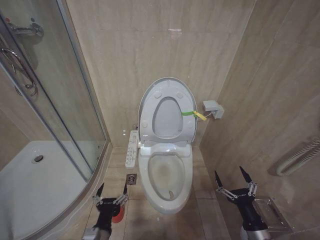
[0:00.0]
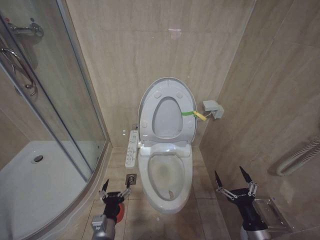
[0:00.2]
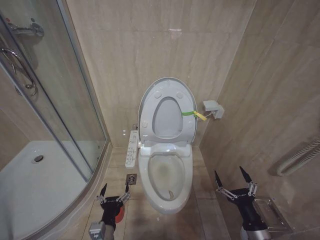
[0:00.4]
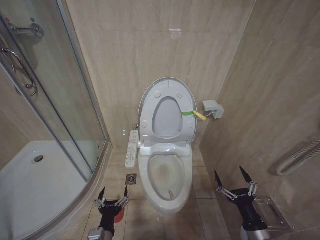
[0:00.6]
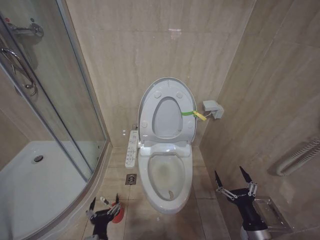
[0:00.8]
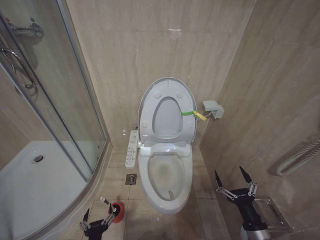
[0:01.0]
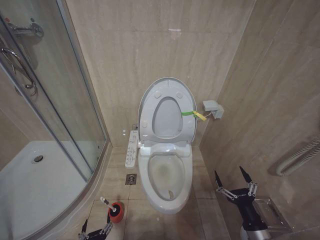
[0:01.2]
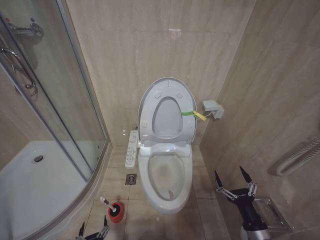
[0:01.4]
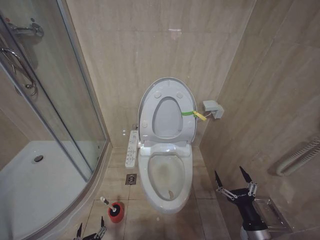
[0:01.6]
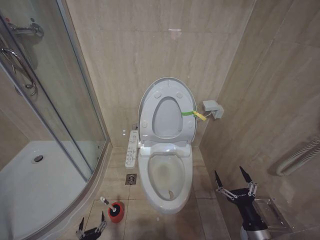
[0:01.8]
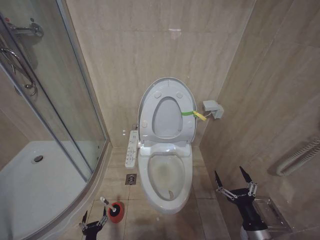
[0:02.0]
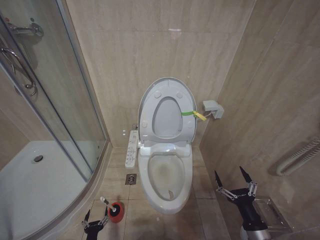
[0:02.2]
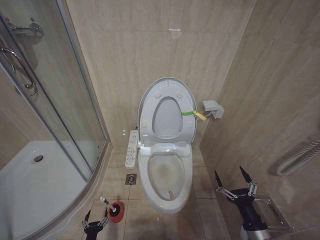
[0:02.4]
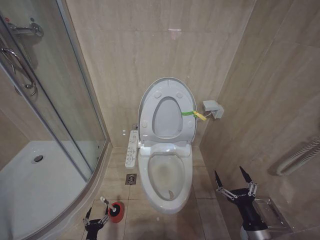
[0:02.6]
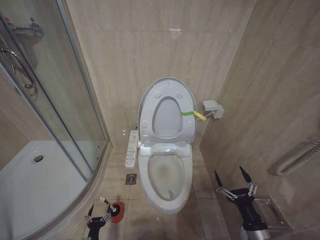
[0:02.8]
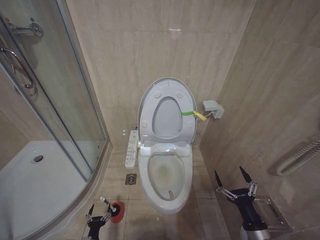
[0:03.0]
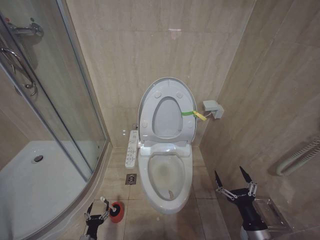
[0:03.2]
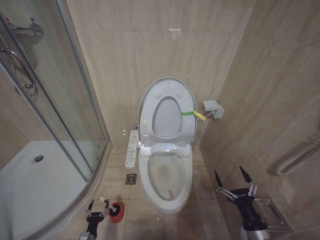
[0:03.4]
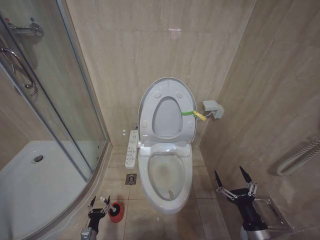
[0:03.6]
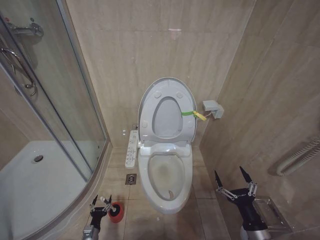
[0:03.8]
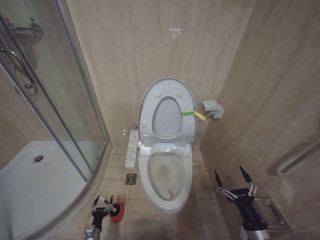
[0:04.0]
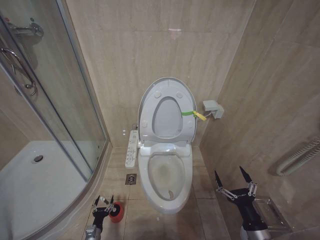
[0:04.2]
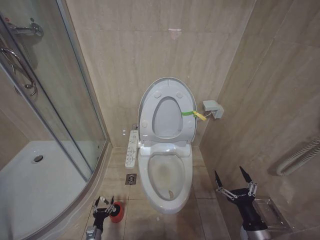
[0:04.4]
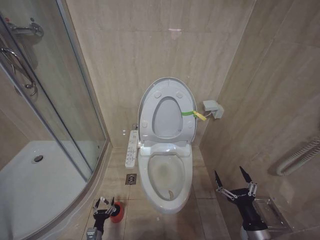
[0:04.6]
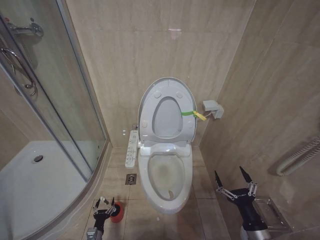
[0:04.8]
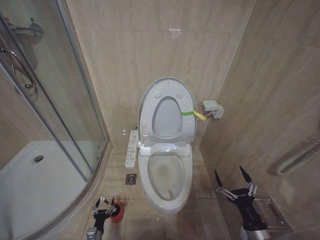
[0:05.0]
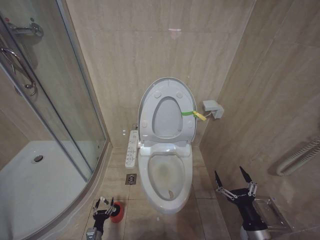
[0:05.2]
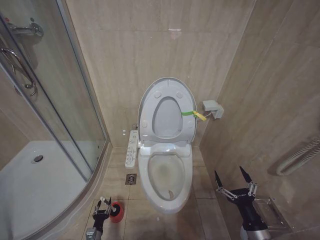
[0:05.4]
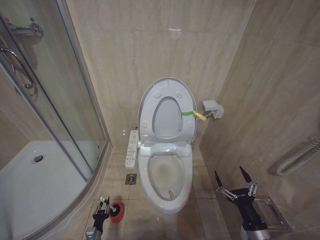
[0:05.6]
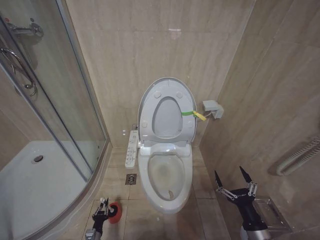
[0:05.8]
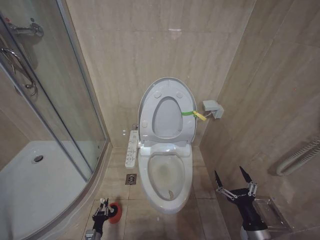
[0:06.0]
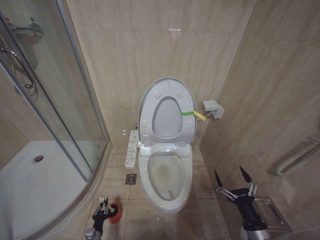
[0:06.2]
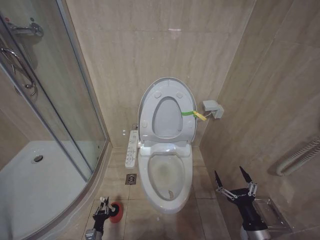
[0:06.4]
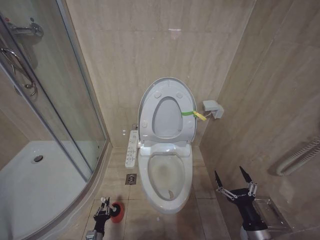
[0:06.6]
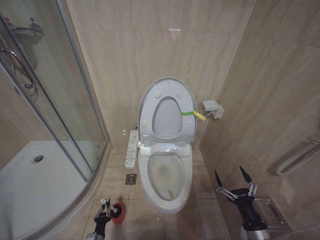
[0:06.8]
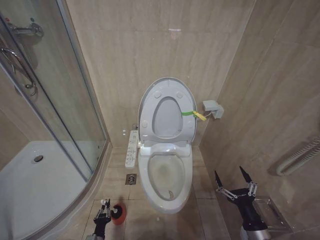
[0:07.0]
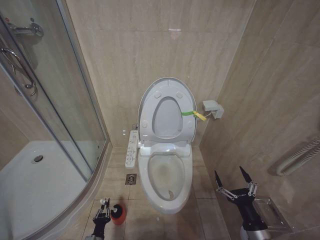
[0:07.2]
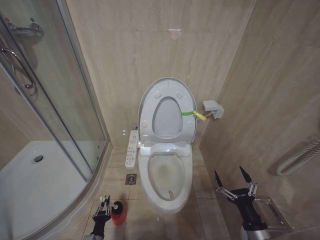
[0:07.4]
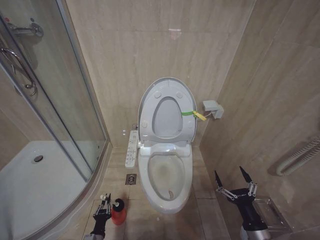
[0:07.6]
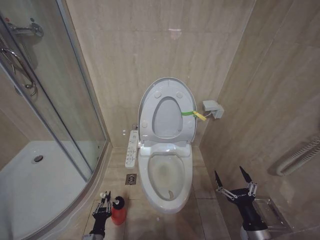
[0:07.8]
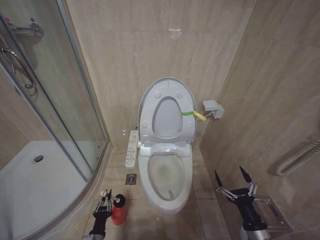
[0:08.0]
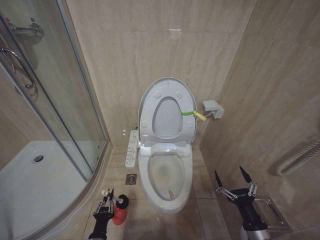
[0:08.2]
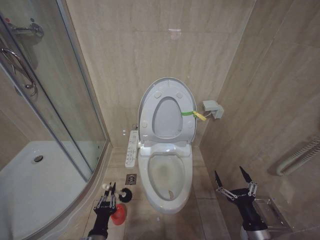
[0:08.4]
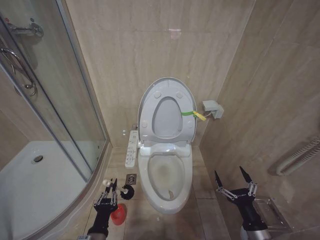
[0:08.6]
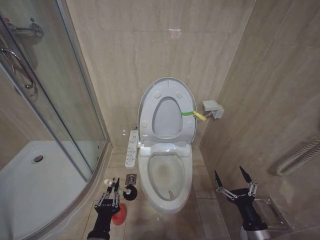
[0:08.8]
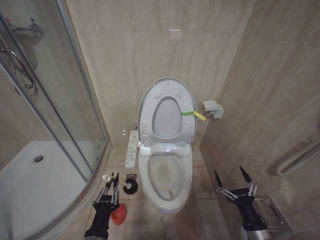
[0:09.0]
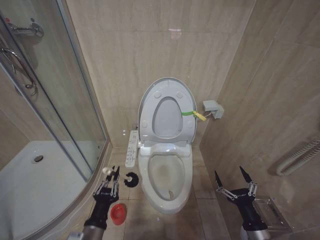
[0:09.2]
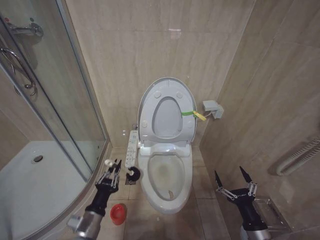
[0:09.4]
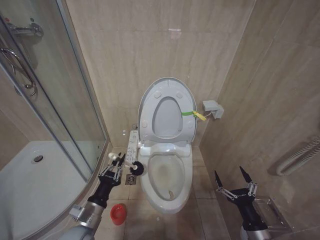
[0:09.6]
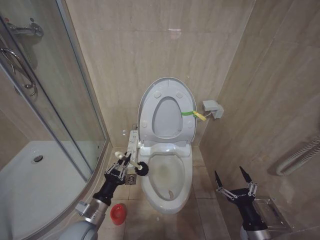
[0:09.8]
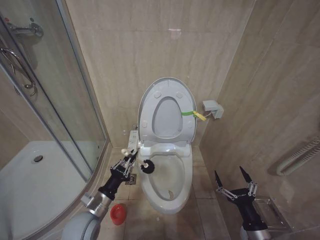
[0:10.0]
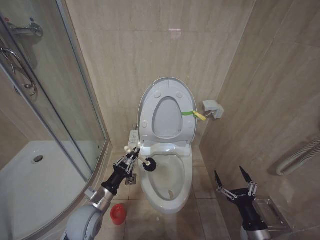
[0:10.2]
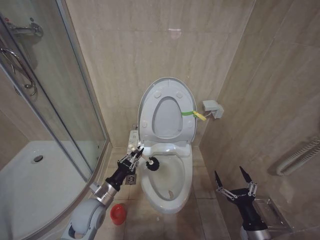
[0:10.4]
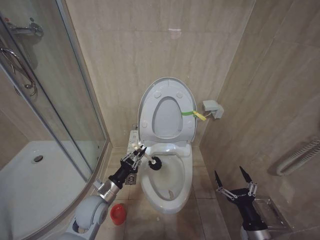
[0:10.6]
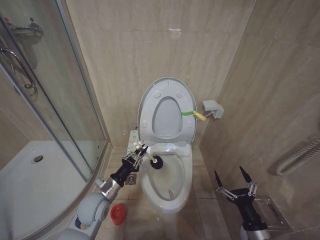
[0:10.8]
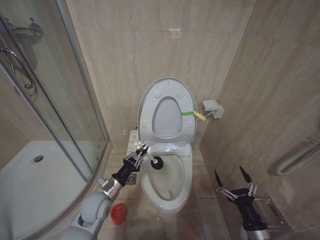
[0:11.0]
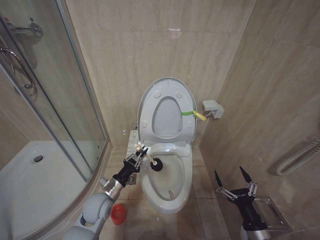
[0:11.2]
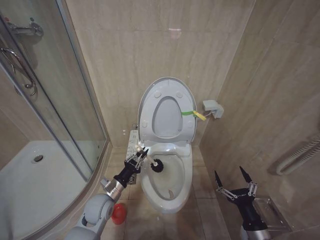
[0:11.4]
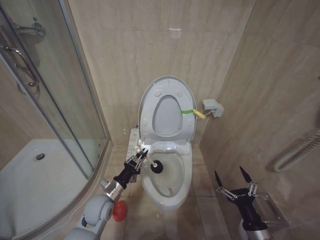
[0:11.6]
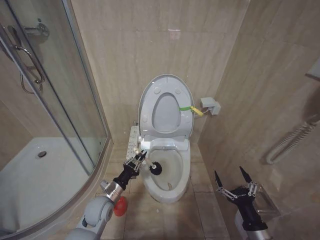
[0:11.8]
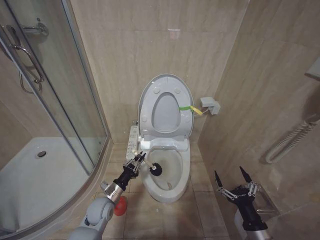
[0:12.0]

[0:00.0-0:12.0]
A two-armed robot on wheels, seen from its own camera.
Task of the whole recording: Open the toilet lid, clean the toilet bowl with a toilet brush, close the toilet lid, and flush.
0:00.0 to 0:01.6: The left gripper is displaced downward by roughly 20 cm.
0:01.6 to 0:03.0: The left gripper is displaced forward, downward and to the left by about 15 cm.
0:06.0 to 0:07.6: The left gripper moves upward, approximately 10 cm.
0:07.6 to 0:09.0: The left gripper goes some 25 cm upward.
0:09.0 to 0:10.4: The left gripper heads forward, covering approximately 15 cm.
0:10.4 to 0:12.0: The left gripper moves downward, roughly 5 cm.

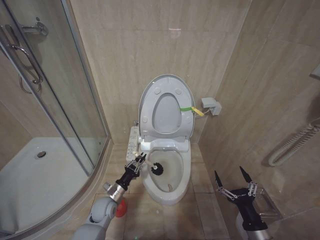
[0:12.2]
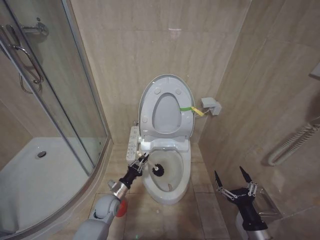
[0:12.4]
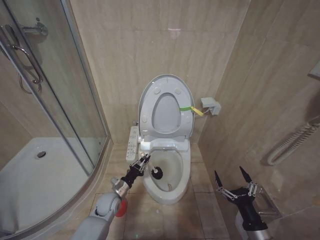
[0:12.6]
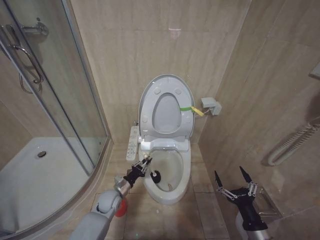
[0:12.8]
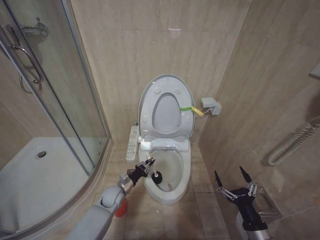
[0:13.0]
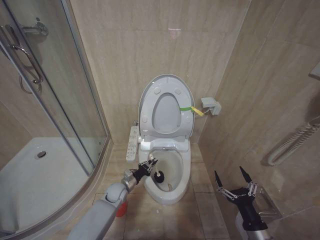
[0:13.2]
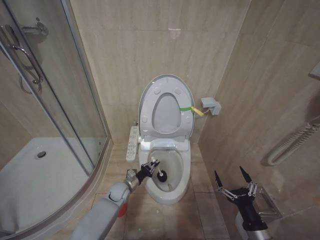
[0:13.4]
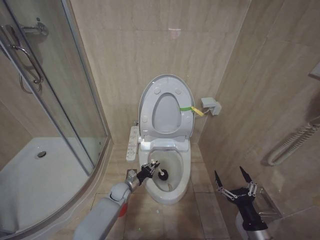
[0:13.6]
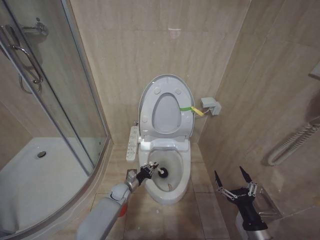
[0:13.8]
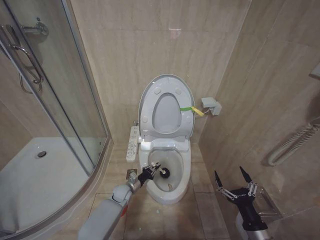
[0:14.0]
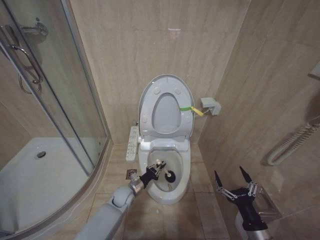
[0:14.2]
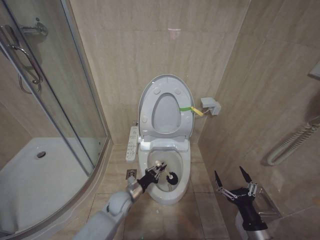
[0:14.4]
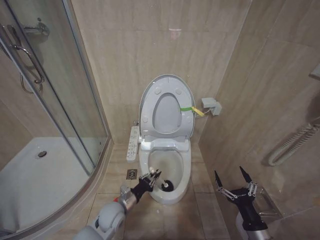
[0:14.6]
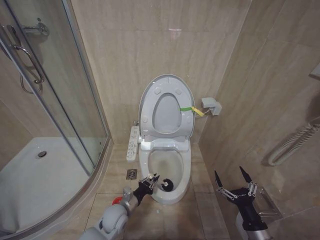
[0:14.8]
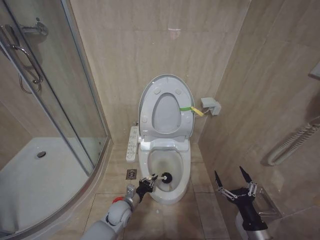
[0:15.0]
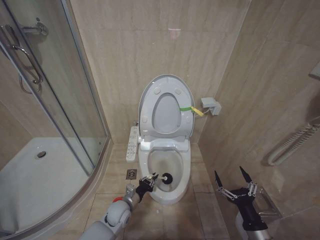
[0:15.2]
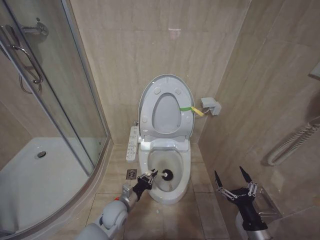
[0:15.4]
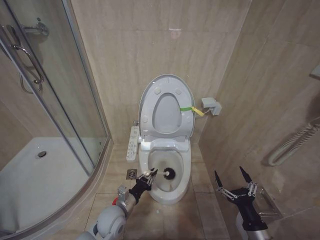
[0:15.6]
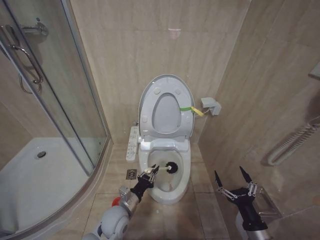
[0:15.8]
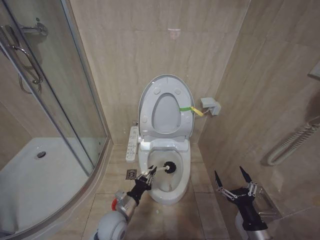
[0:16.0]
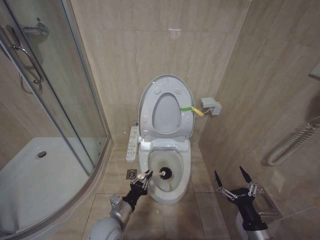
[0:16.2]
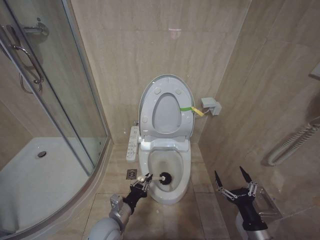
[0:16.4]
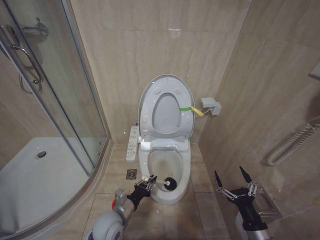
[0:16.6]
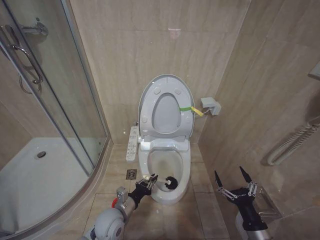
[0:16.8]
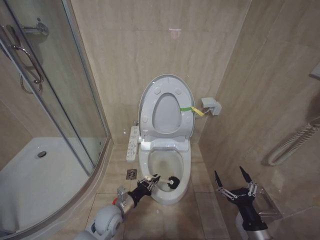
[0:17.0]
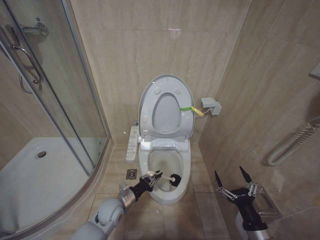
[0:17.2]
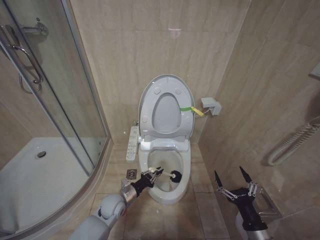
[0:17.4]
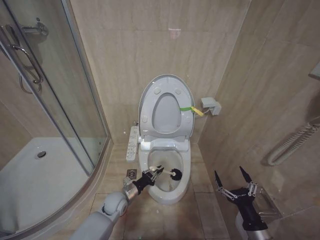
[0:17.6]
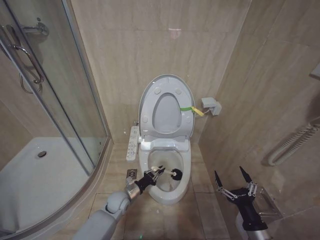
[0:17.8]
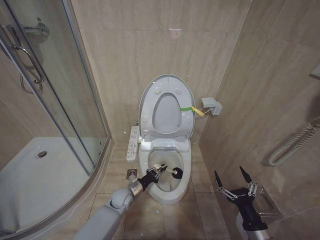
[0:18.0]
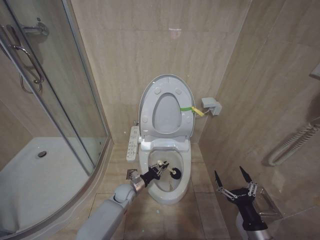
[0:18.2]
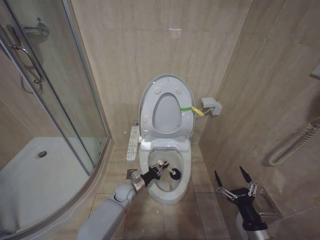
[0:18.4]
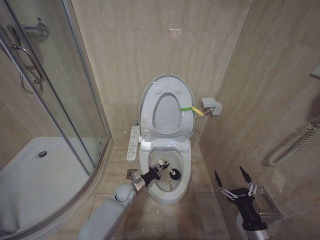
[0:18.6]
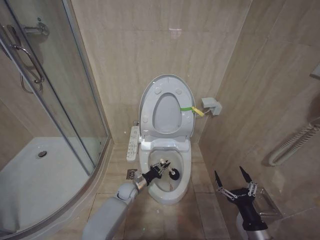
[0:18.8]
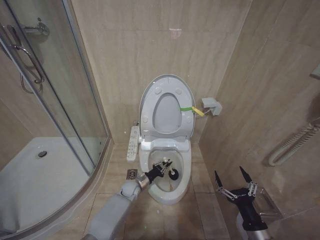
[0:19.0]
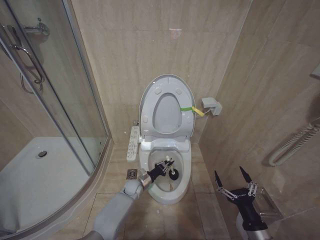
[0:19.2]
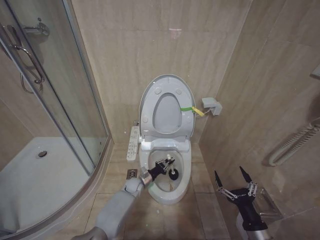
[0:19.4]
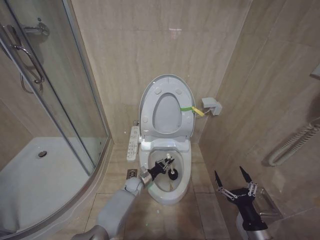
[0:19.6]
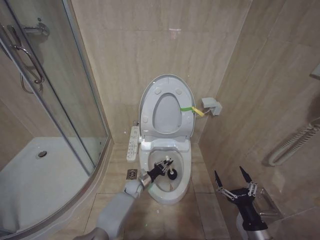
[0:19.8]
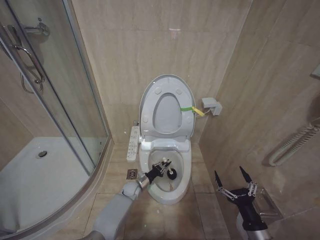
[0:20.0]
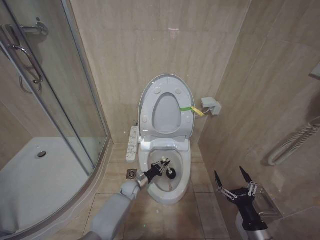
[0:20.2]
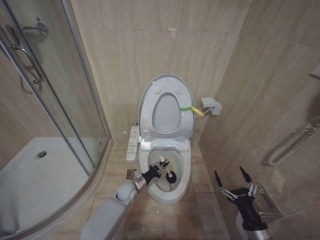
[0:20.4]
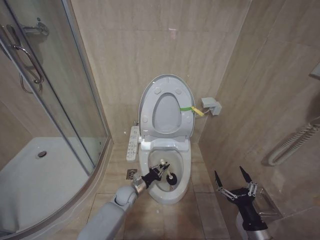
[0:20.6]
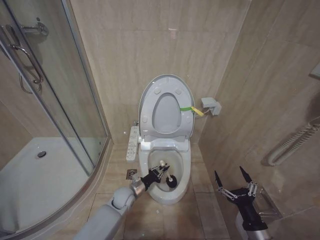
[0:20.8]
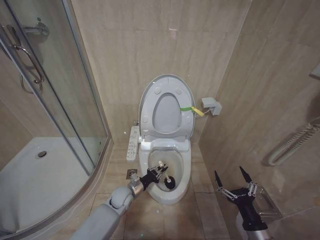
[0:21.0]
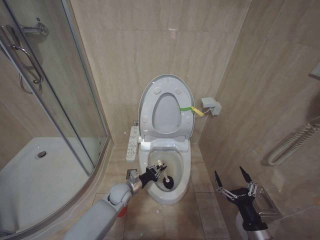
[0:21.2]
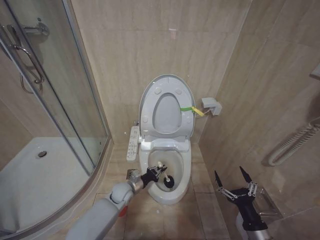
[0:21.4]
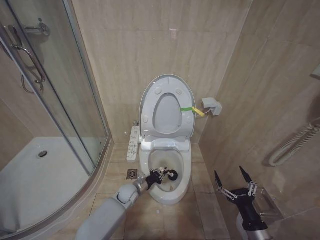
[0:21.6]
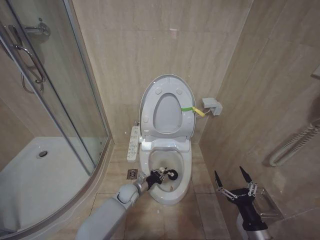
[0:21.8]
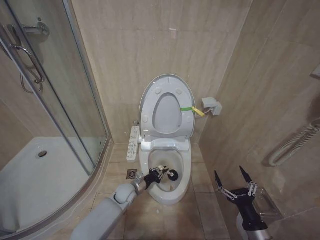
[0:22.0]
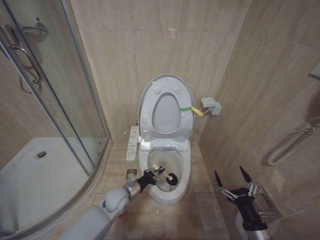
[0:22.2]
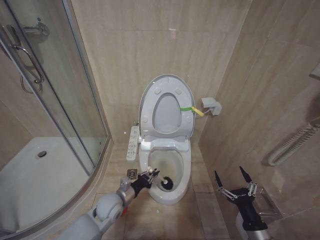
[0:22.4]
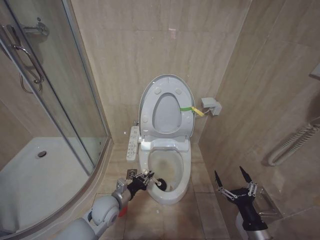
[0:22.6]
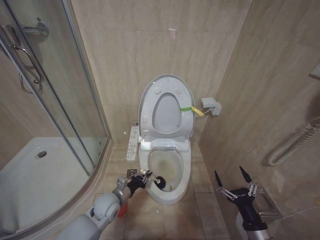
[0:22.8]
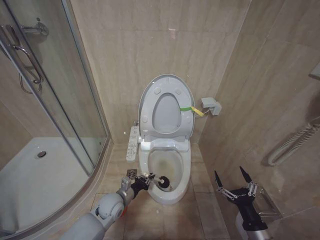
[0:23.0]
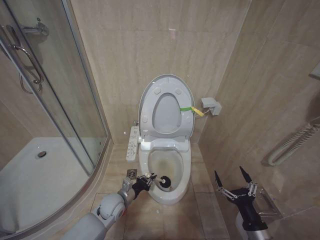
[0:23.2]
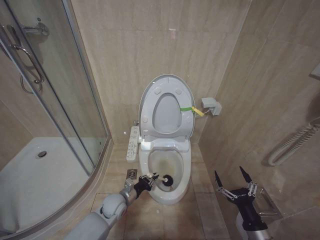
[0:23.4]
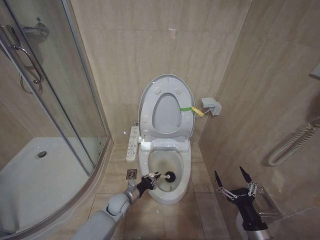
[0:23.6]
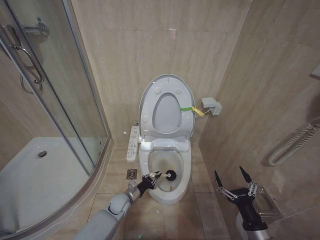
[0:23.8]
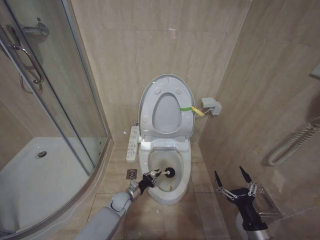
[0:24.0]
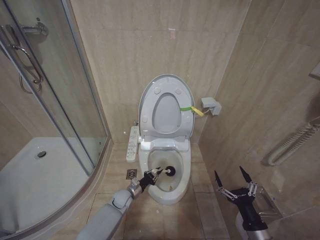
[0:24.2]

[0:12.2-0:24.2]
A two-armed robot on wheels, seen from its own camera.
Task of the whole recording: Open the toilet lid, clean the toilet bowl with a toilet brush, close the toilet lid, and flush.
0:12.2 to 0:13.8: The left gripper moves forward and downward, some 10 cm.
0:13.8 to 0:15.2: The left gripper moves backward, roughly 10 cm.
0:15.2 to 0:16.6: The left gripper moves upward and backward, approximately 10 cm.
0:16.6 to 0:18.2: The left gripper goes approximately 20 cm forward and downward.
0:18.2 to 0:19.8: The left gripper travels forward by approximately 5 cm.
0:19.8 to 0:21.2: The left gripper goes roughly 10 cm backward and upward.
0:21.2 to 0:22.6: The left gripper shifts about 10 cm backward and upward.
0:22.6 to 0:24.2: The left gripper travels downward and forward by about 15 cm.
